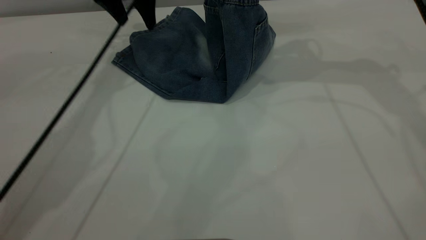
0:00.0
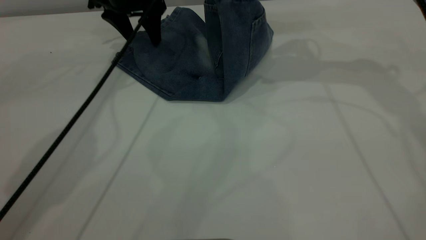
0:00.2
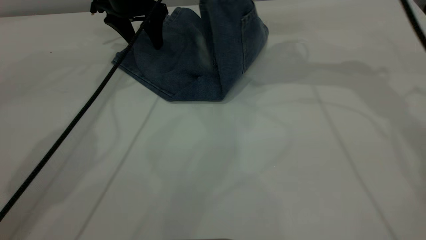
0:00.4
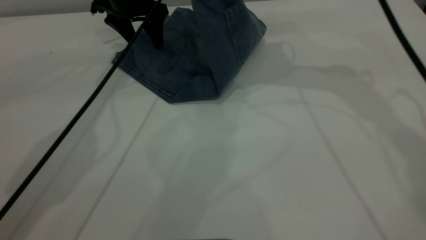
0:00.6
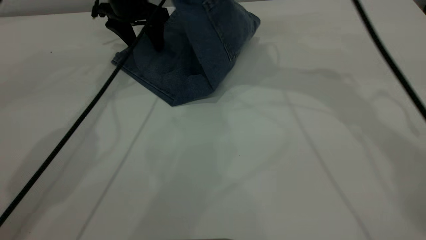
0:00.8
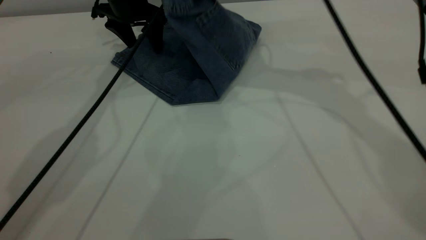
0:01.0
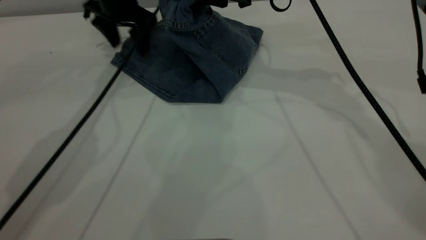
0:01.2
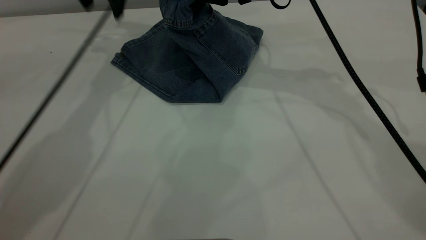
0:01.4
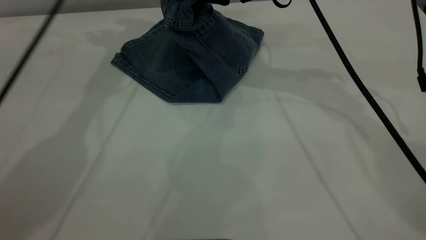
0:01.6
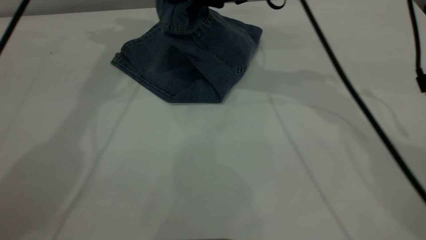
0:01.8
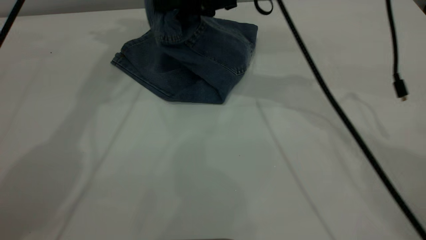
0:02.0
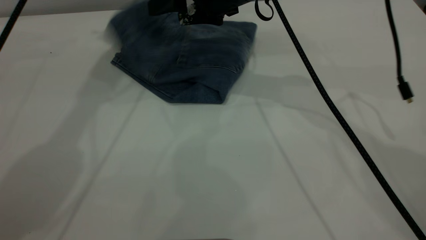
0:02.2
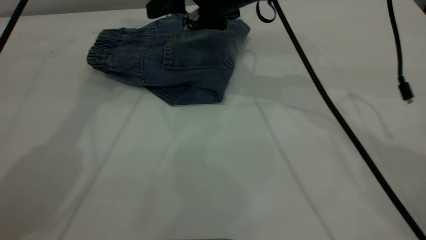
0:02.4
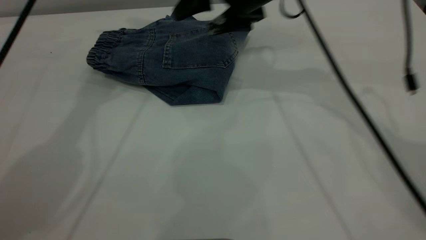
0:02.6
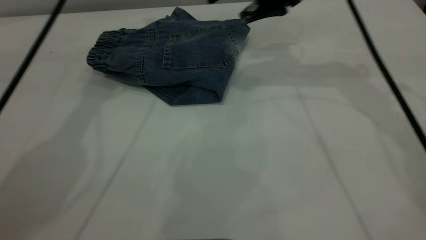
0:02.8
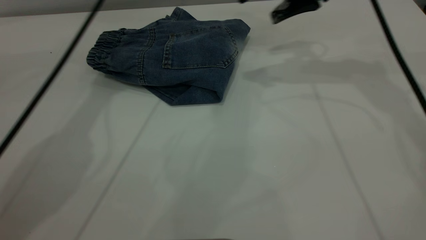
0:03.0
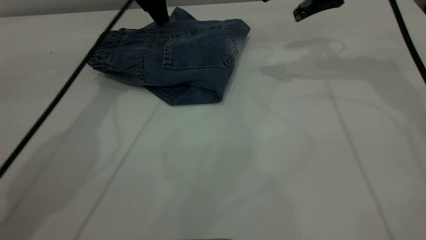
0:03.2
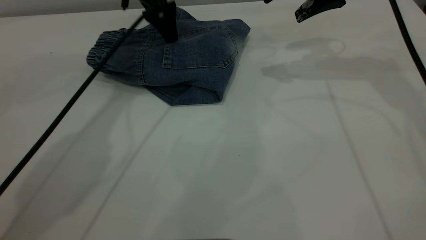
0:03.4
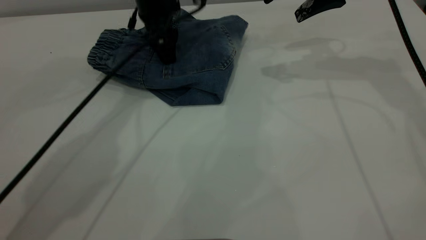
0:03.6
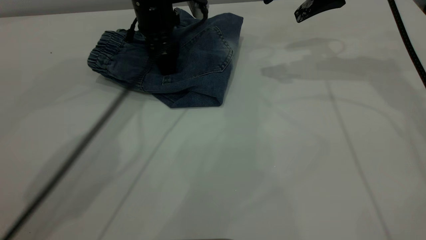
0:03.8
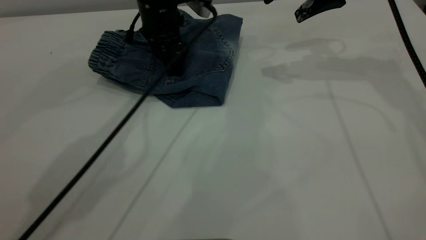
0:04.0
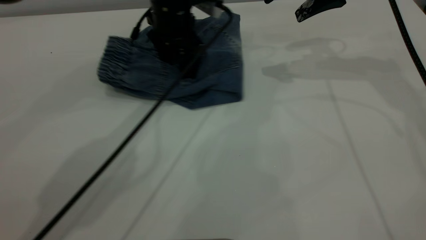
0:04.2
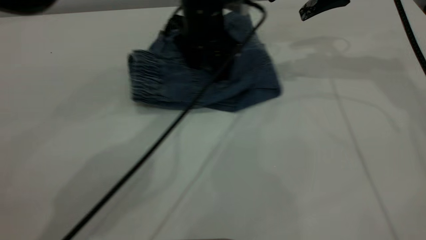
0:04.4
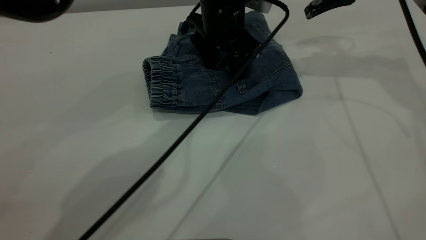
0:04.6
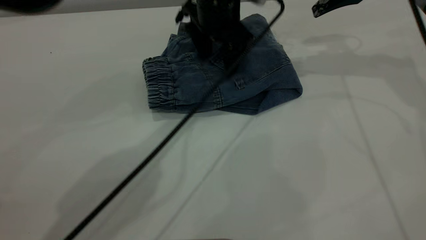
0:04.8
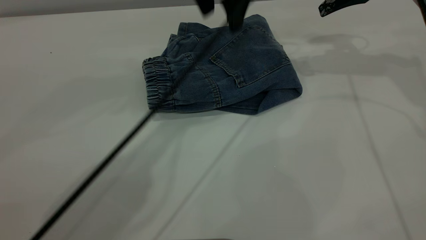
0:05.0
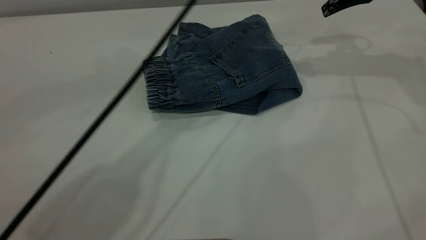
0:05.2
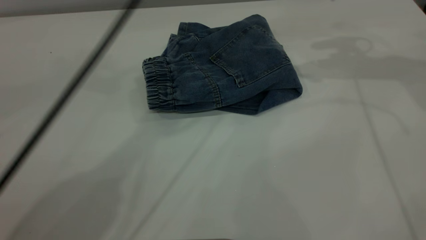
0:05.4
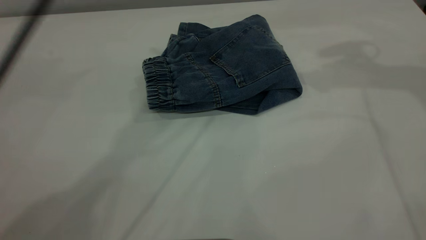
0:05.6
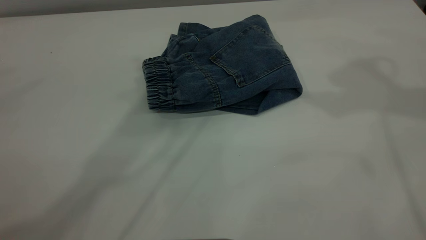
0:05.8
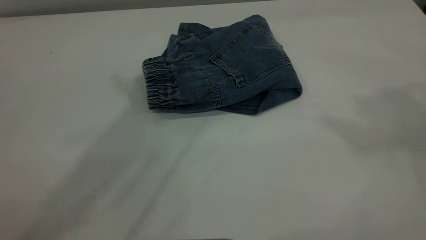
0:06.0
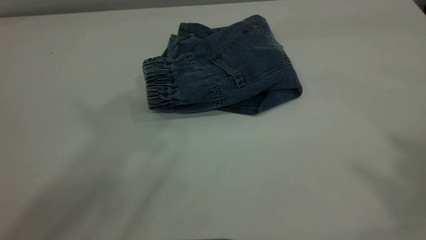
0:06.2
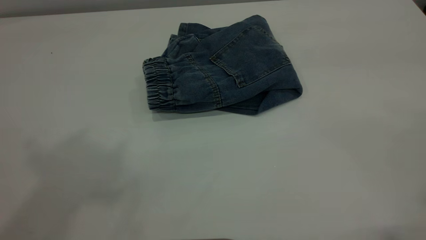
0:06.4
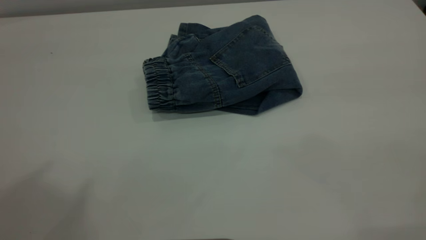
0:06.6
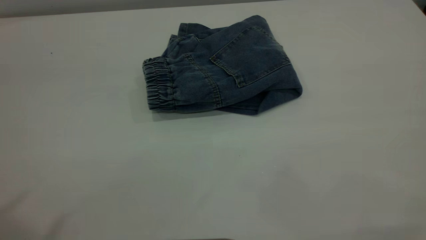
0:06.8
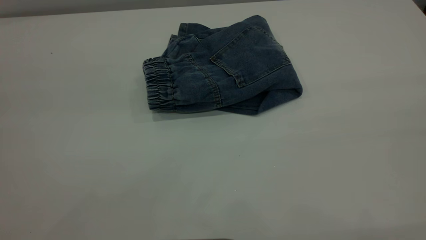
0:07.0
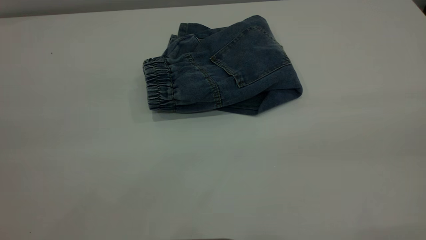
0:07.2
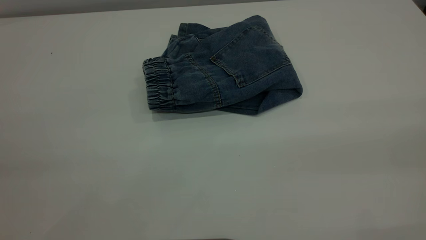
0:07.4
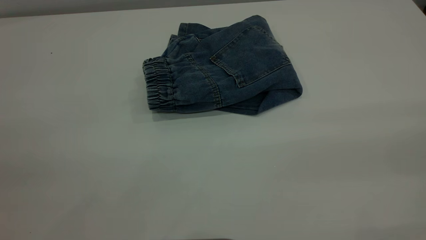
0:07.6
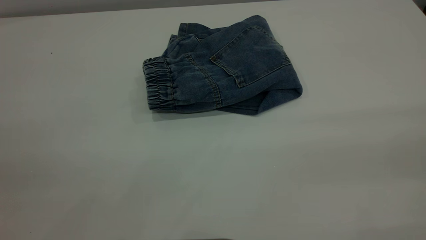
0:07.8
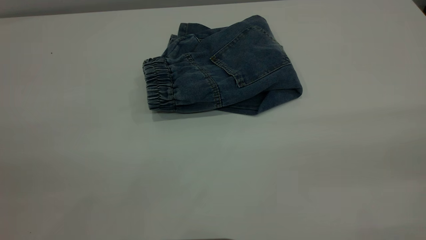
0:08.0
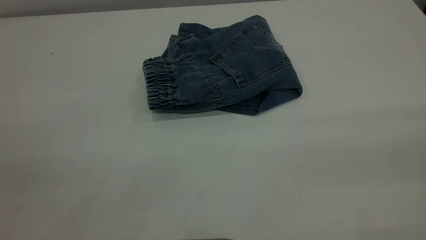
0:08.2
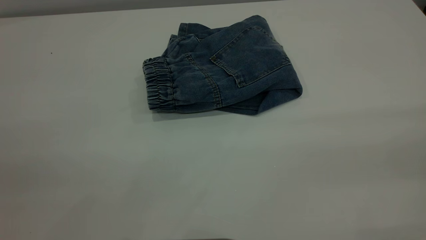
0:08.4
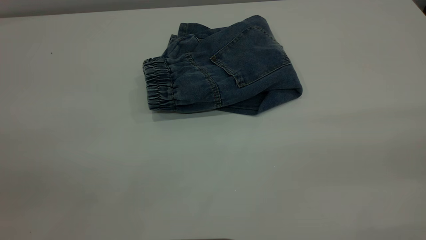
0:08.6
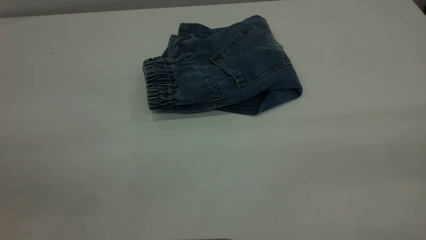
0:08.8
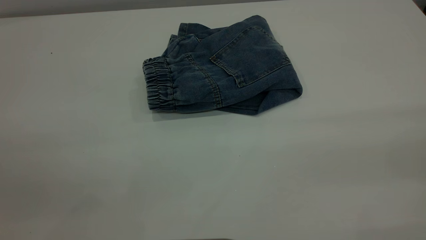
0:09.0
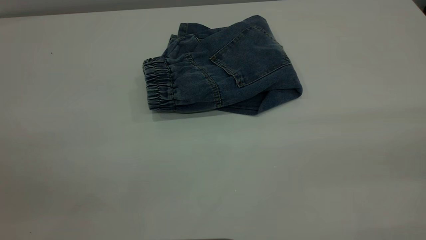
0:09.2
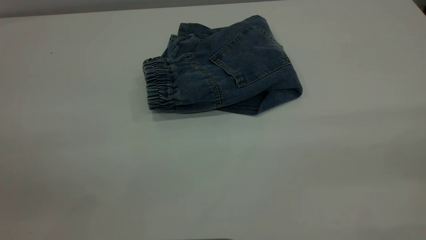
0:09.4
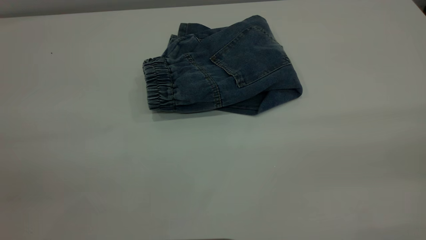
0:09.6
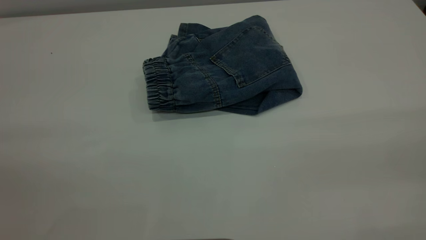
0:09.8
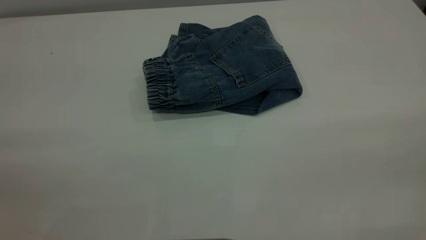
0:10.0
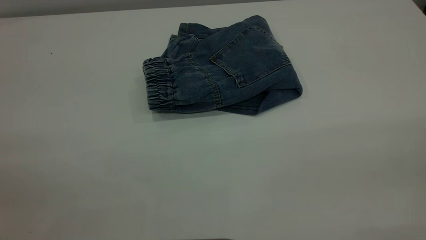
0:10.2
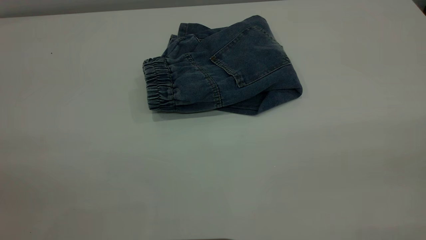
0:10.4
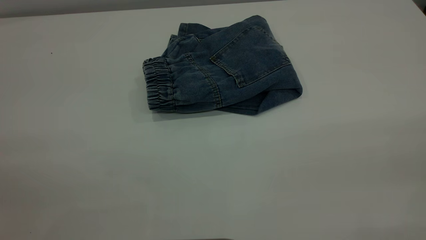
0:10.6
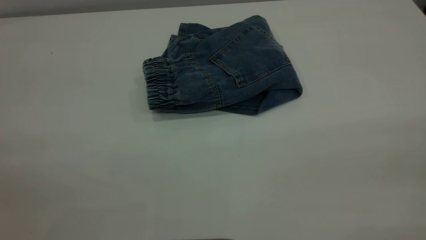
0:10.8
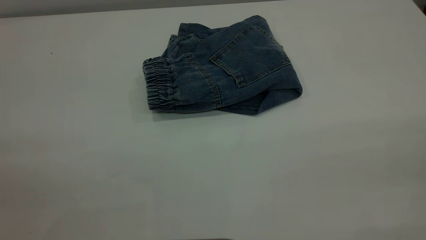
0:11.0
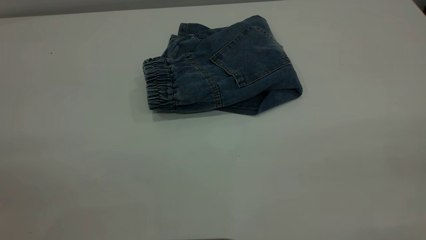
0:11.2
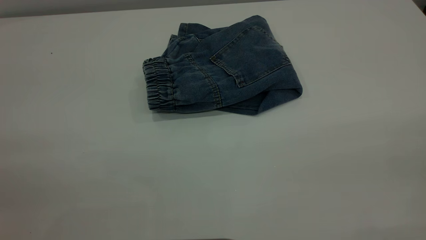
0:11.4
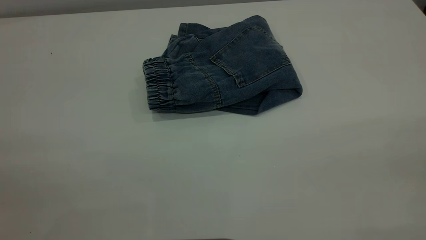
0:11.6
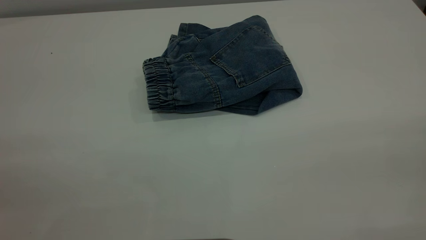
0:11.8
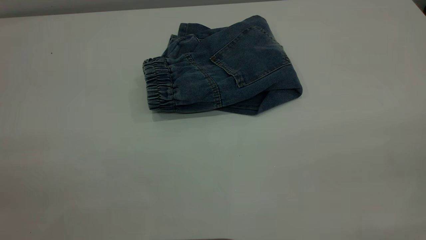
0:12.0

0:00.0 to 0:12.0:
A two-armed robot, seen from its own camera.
Step, 0:00.0 to 0:02.8: Fold your pants from right to left.
0:00.0 to 0:01.6: The right gripper is displaced to the left by roughly 10 cm, while the left gripper is displaced upward by some 15 cm.
0:01.6 to 0:03.0: The right gripper travels to the right by some 10 cm, and opens; the left gripper heads downward, covering roughly 10 cm.
0:03.0 to 0:04.4: The left gripper is displaced to the right, downward and backward by about 20 cm.
0:04.4 to 0:06.0: The right gripper heads upward and backward, covering approximately 35 cm, while the left gripper goes about 40 cm upward.

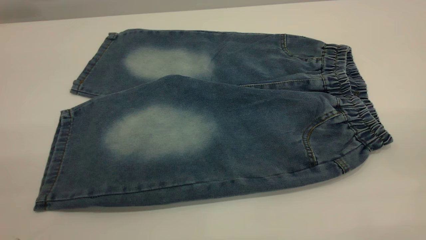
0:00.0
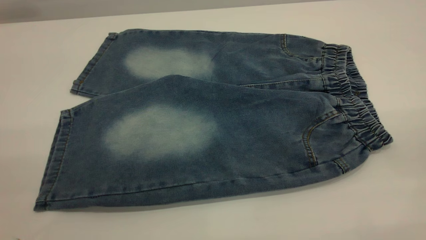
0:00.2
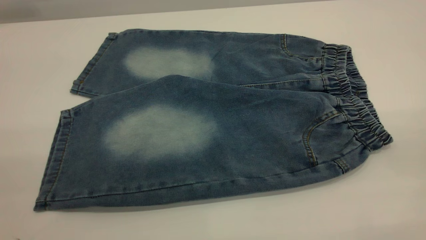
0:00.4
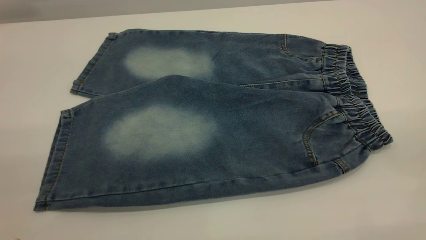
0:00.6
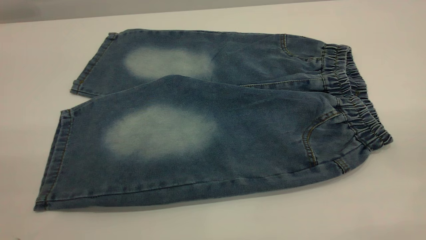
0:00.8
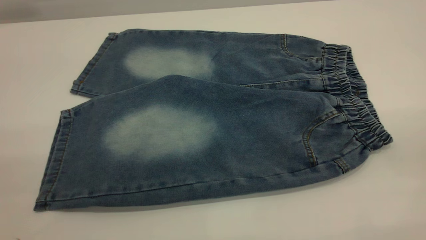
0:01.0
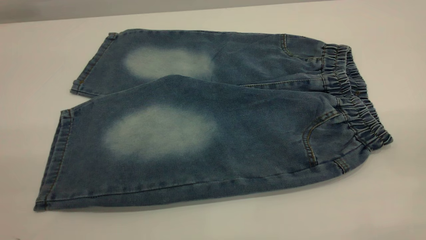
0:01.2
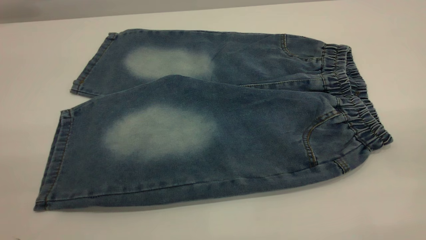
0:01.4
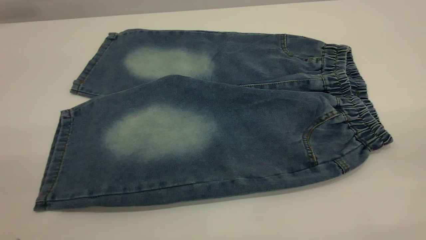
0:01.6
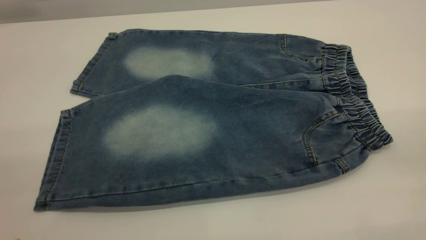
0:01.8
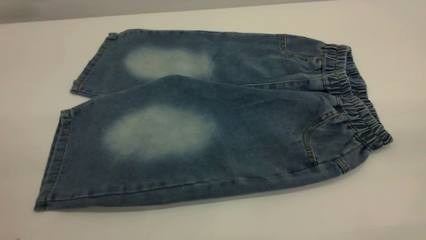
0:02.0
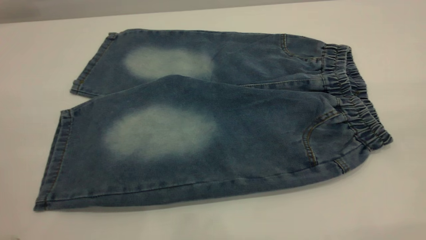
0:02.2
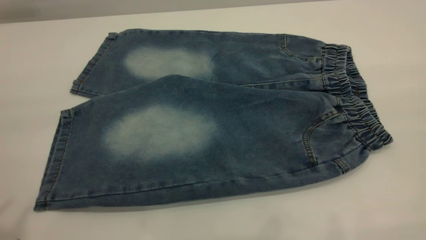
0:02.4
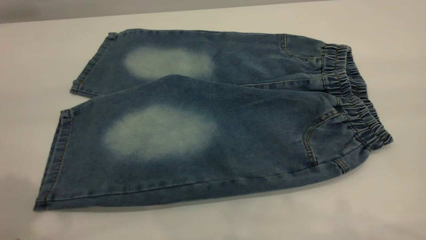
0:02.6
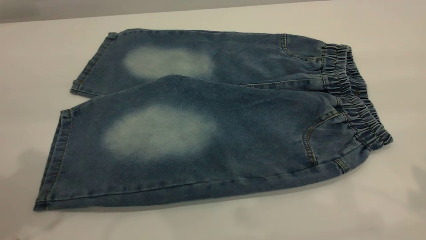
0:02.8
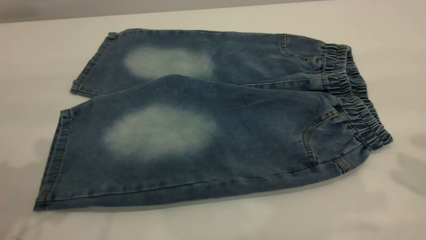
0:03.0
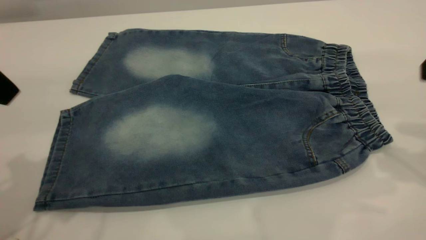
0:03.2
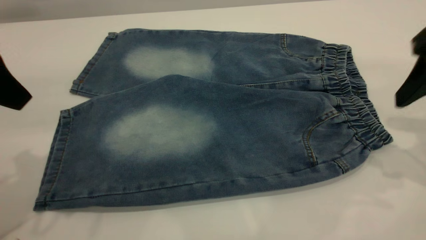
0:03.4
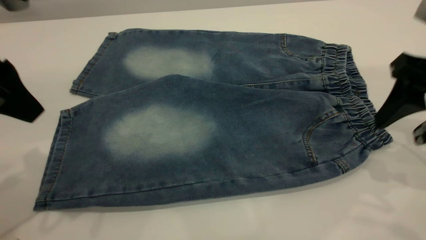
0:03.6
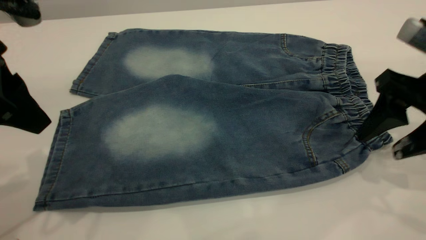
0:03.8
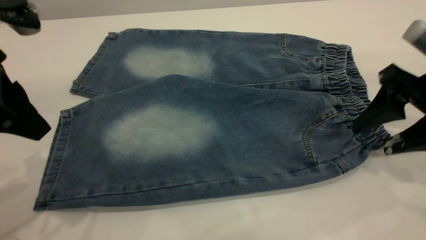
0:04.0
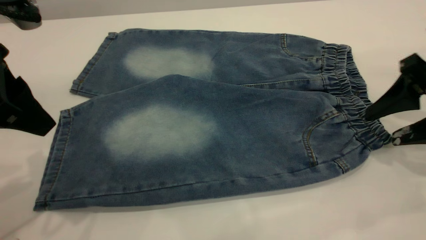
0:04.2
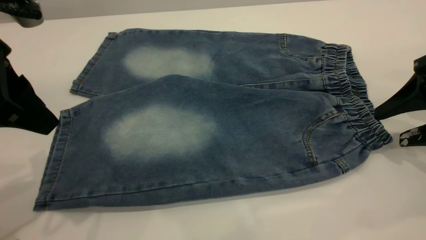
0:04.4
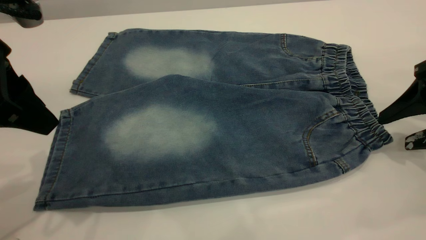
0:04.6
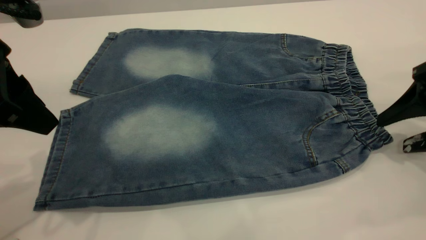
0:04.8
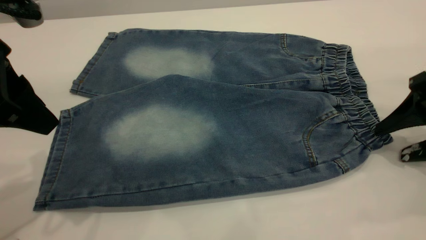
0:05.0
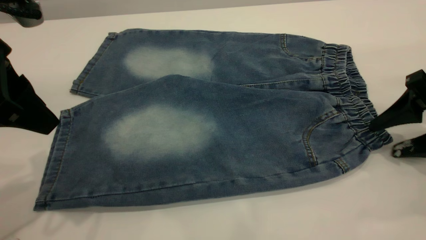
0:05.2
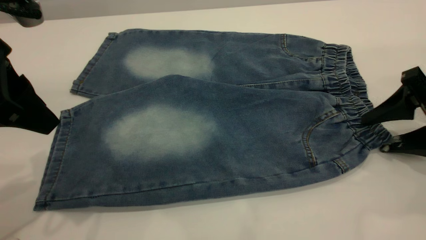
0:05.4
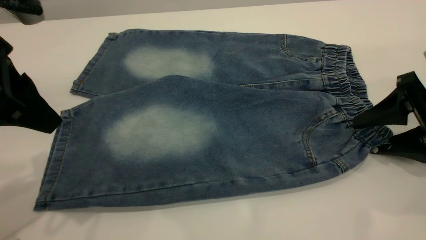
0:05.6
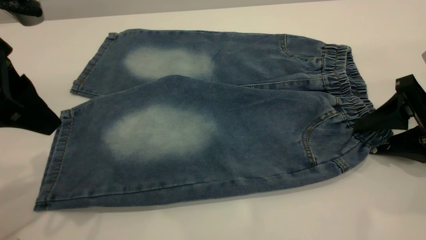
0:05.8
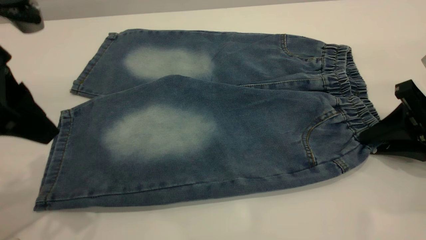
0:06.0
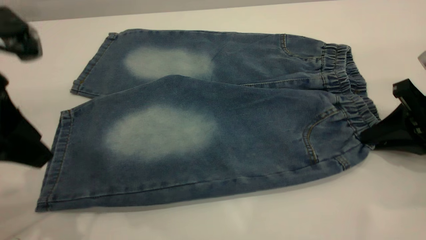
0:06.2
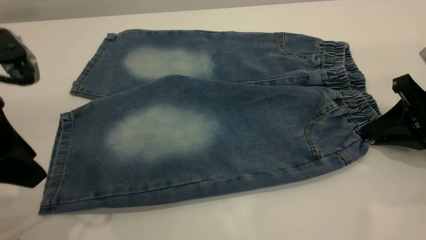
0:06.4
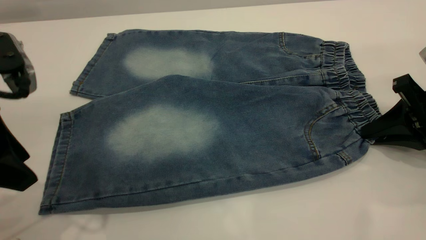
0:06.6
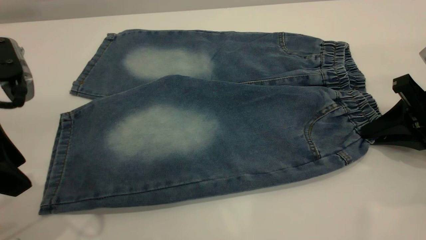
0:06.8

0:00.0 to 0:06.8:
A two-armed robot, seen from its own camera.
0:00.0 to 0:01.4: The two grippers keep their place.
0:02.8 to 0:04.0: The right gripper moves downward and forward, roughly 20 cm; the left gripper shifts roughly 10 cm downward.
0:04.0 to 0:05.4: The right gripper changes place by approximately 5 cm.
0:05.4 to 0:06.8: The right gripper closes up.
